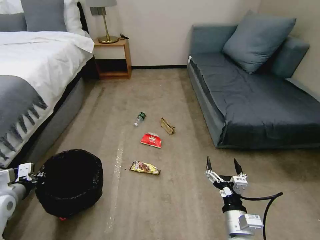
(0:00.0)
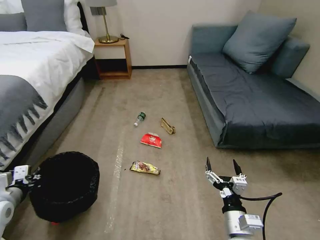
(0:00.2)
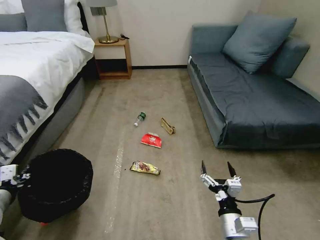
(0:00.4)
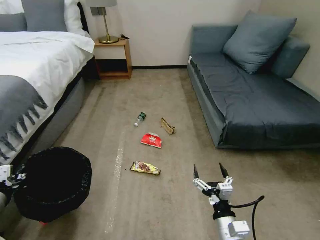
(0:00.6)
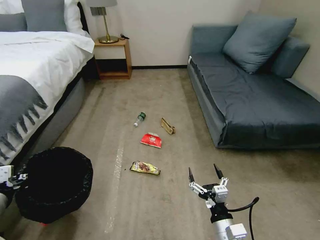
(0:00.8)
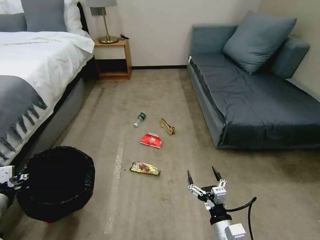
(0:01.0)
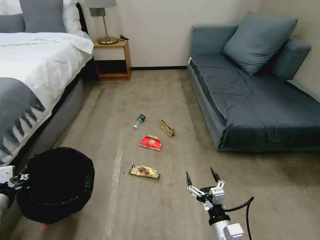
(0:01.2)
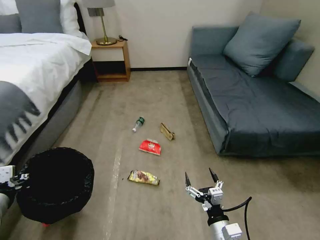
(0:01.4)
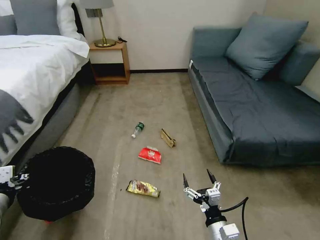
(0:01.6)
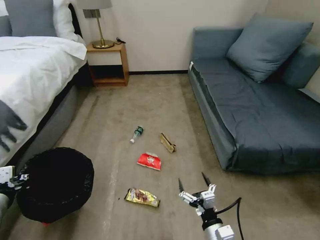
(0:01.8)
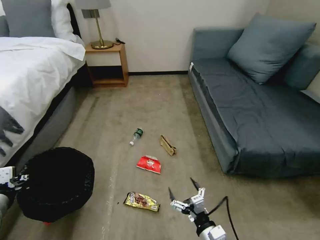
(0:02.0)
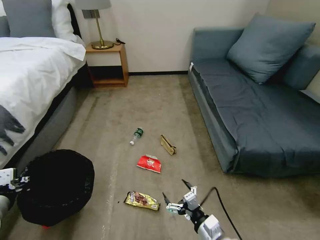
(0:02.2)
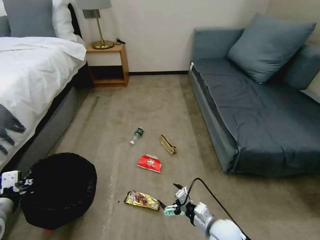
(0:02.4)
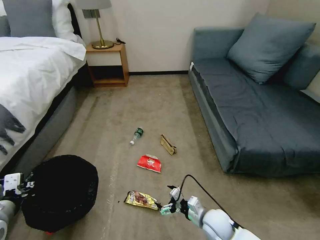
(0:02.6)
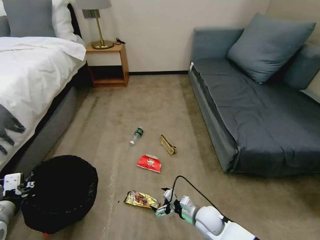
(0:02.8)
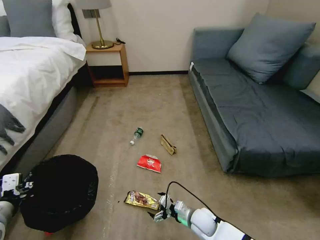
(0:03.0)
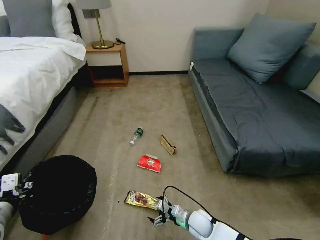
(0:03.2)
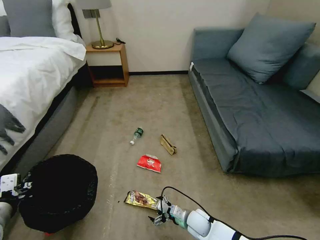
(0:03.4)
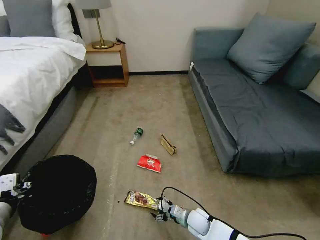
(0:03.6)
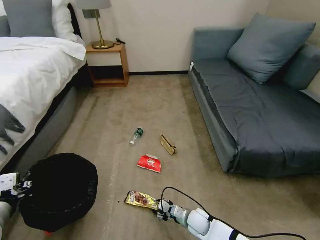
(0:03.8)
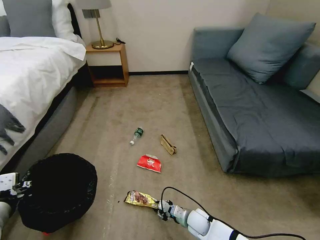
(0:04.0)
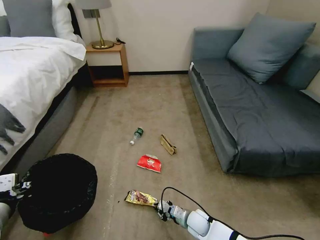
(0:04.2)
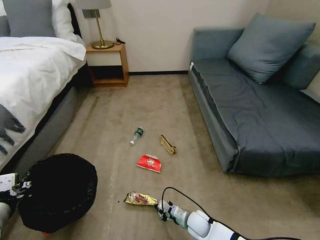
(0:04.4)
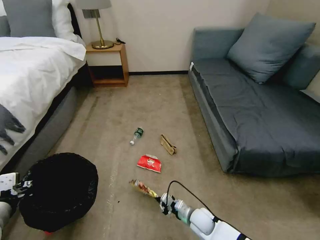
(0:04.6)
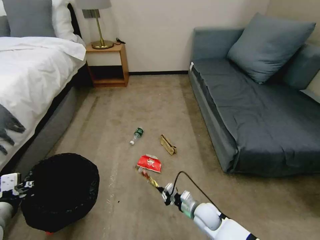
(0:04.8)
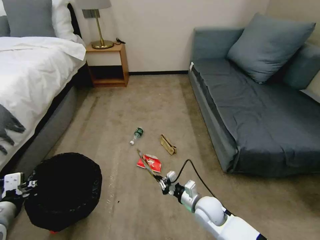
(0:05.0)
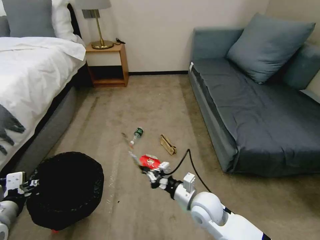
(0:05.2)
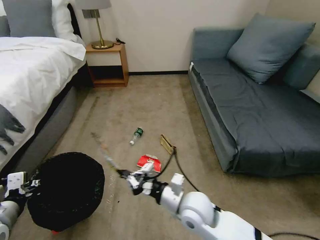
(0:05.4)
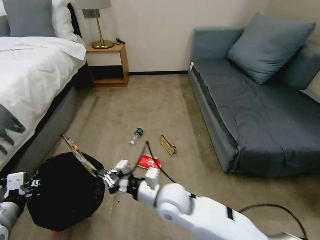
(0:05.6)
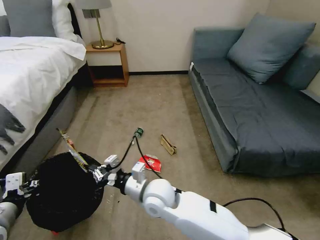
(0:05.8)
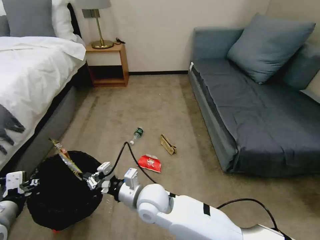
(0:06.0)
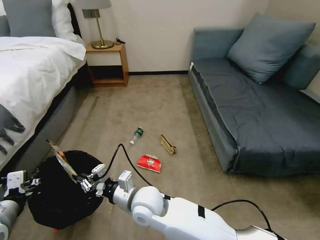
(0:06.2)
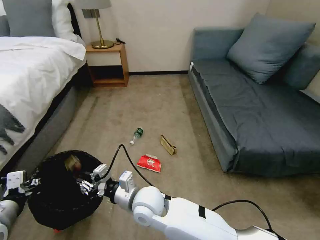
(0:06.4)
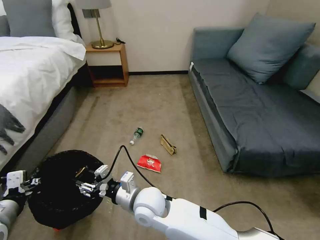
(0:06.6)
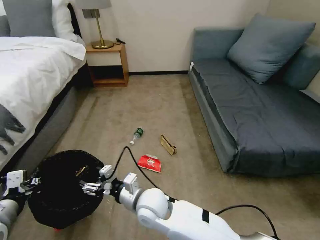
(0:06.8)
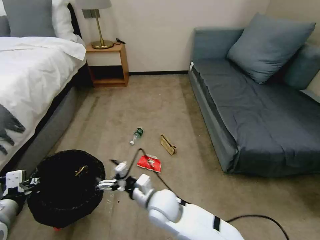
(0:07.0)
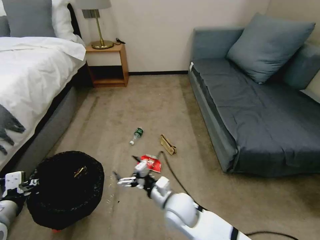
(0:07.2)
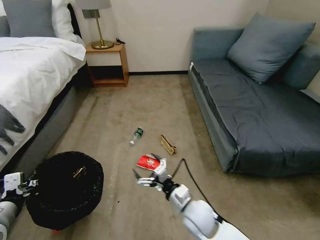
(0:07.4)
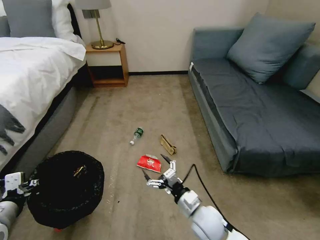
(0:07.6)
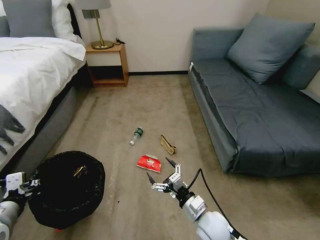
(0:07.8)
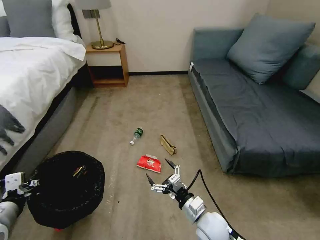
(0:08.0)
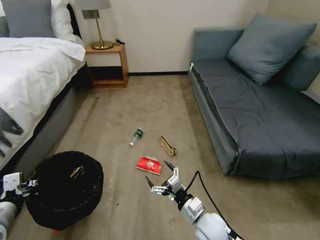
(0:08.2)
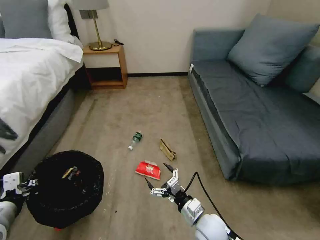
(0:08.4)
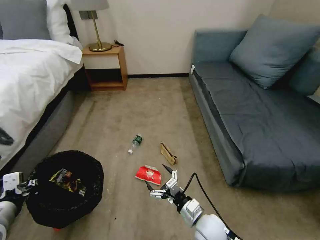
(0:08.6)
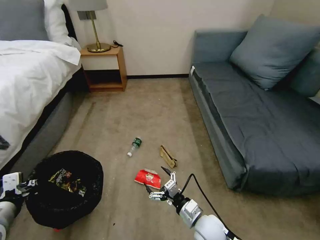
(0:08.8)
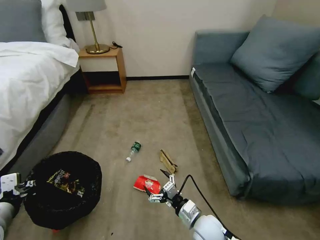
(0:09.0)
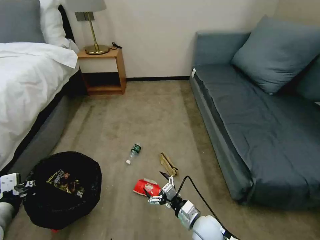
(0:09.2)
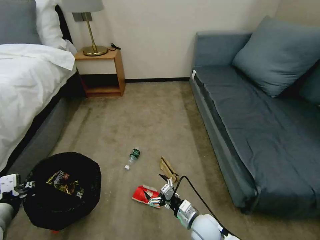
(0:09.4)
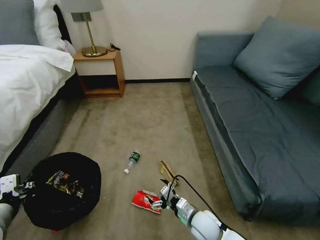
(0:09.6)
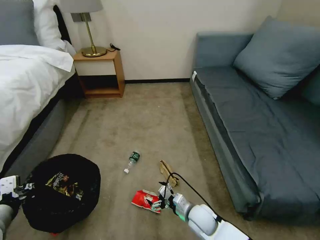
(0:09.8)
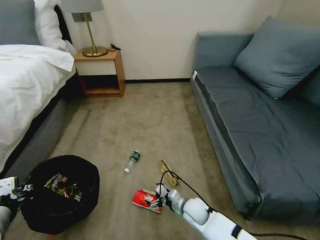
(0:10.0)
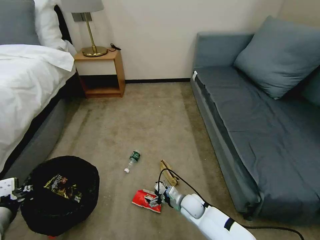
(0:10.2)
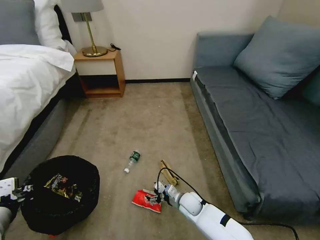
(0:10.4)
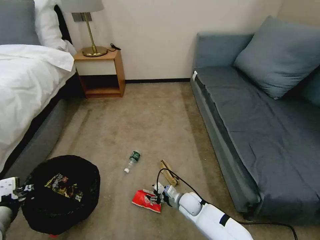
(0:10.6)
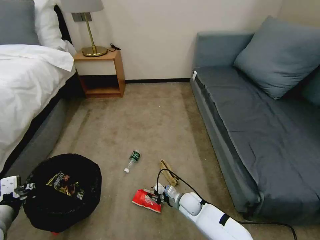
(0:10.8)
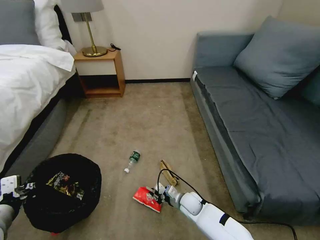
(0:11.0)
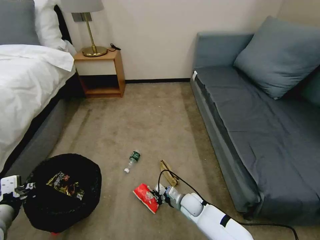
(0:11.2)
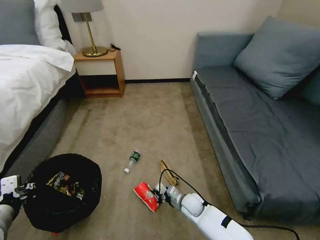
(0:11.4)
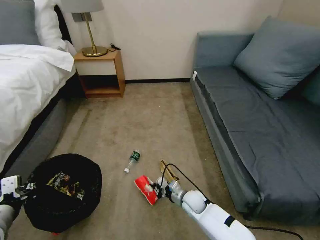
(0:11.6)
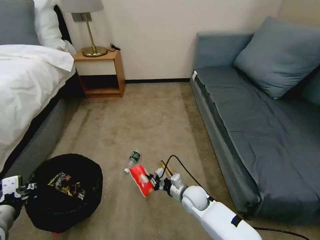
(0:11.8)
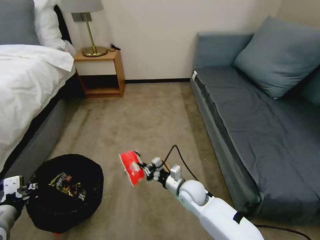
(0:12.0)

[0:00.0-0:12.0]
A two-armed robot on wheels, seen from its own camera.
Task of the whole recording: Pick up the trash bin, then pick up the garbage on the floor and place it into the trash bin.
0:00.0 to 0:01.6: The left gripper heads backward and upward, covering approximately 10 cm; the right gripper changes place by roughly 5 cm.
0:01.6 to 0:03.0: The right gripper heads forward and downward, covering some 20 cm.
0:03.0 to 0:04.4: The right gripper closes.
0:04.4 to 0:06.0: The right gripper travels upward and to the left by about 30 cm.
0:06.0 to 0:07.6: The right gripper is displaced to the right and downward by roughly 20 cm, and opens its fingers.
0:09.0 to 0:10.4: The right gripper is displaced forward and downward by some 15 cm.
0:10.4 to 0:12.0: The right gripper moves upward, approximately 10 cm, and closes its fingers.

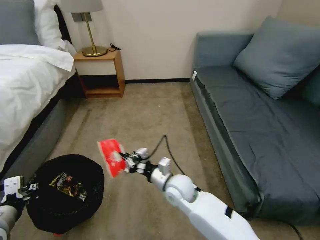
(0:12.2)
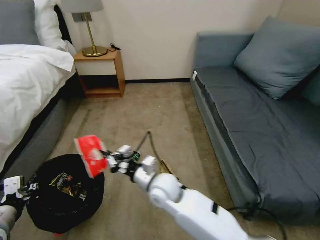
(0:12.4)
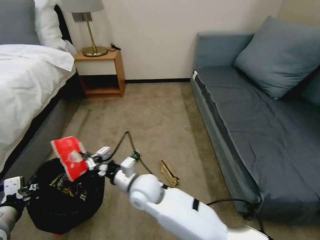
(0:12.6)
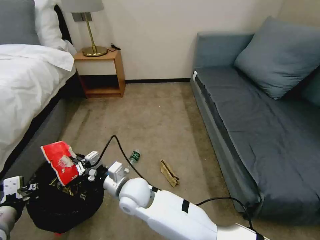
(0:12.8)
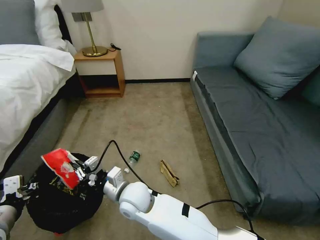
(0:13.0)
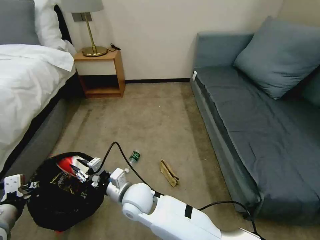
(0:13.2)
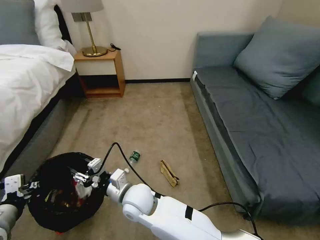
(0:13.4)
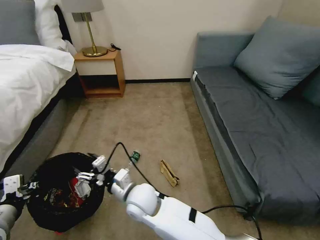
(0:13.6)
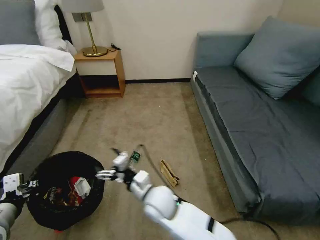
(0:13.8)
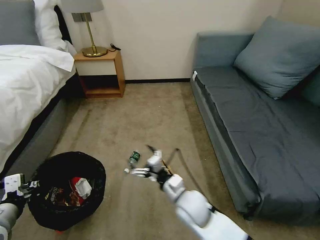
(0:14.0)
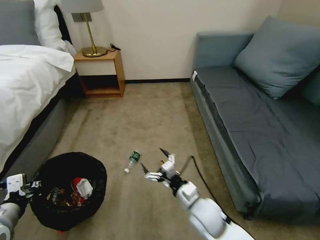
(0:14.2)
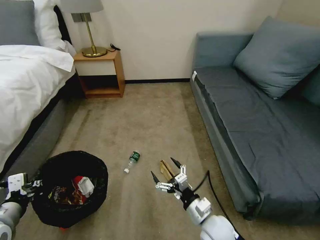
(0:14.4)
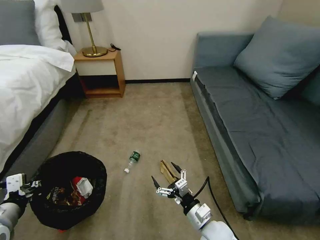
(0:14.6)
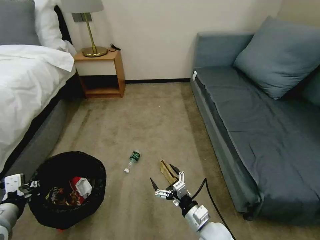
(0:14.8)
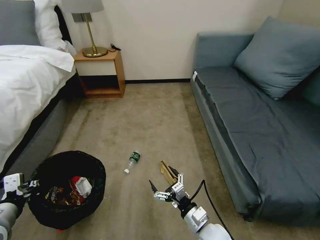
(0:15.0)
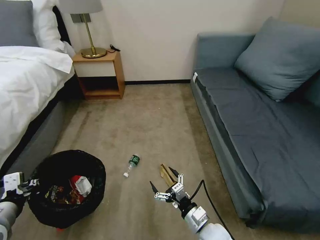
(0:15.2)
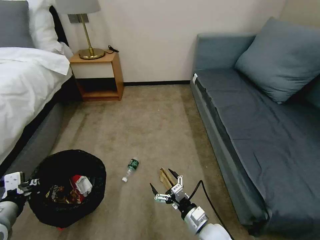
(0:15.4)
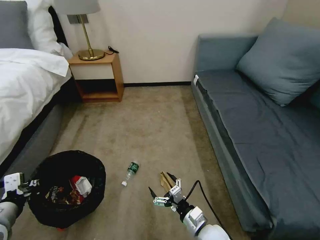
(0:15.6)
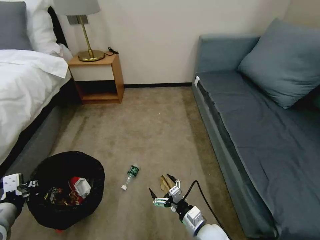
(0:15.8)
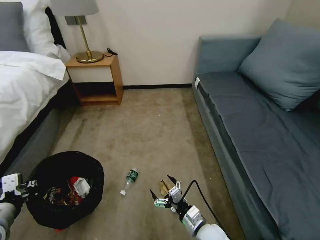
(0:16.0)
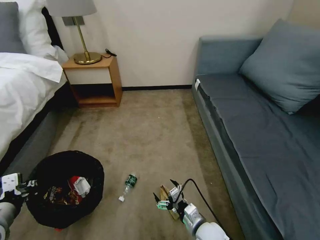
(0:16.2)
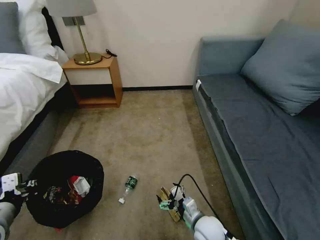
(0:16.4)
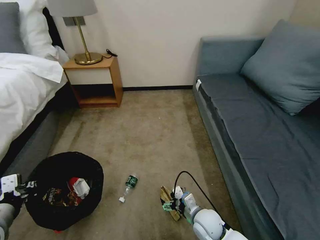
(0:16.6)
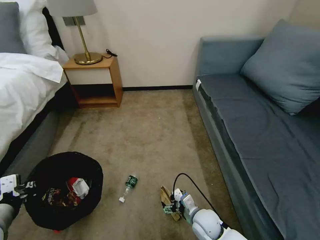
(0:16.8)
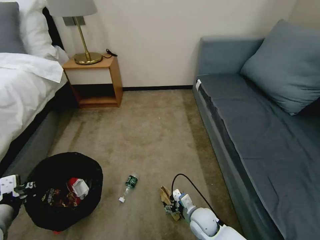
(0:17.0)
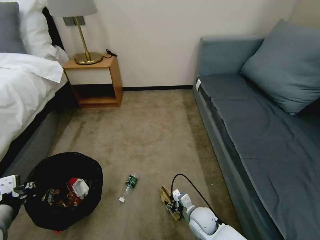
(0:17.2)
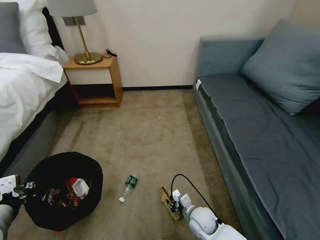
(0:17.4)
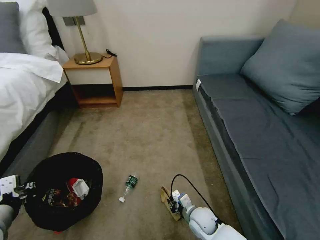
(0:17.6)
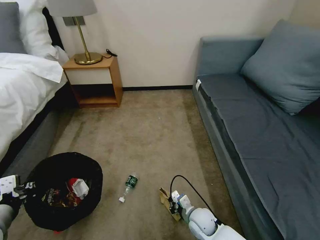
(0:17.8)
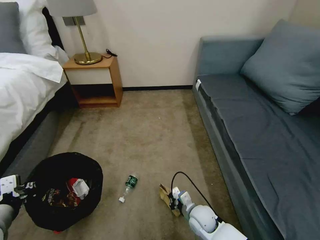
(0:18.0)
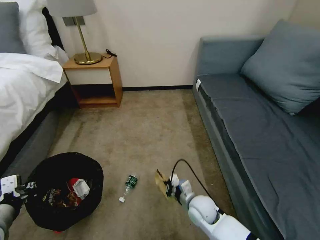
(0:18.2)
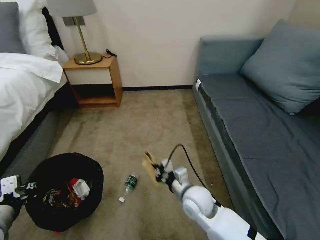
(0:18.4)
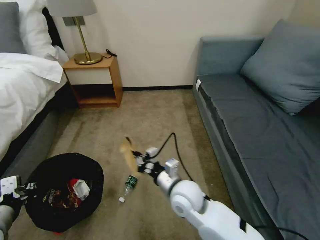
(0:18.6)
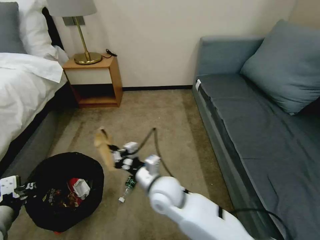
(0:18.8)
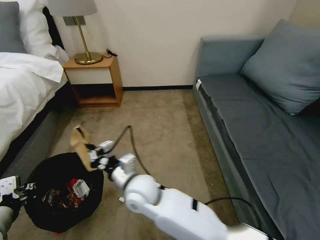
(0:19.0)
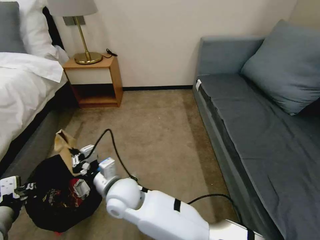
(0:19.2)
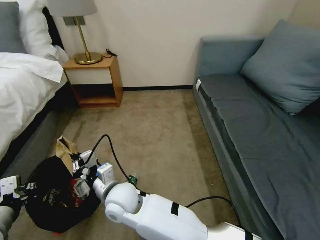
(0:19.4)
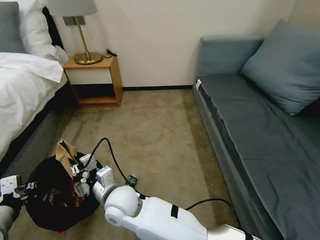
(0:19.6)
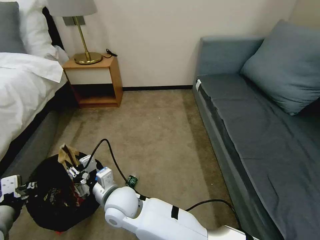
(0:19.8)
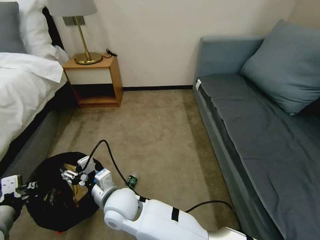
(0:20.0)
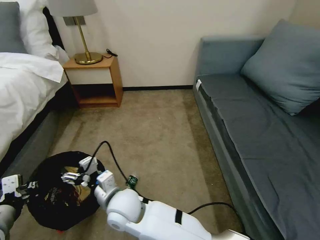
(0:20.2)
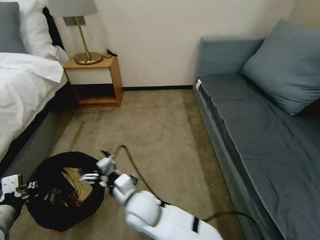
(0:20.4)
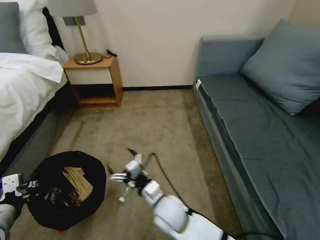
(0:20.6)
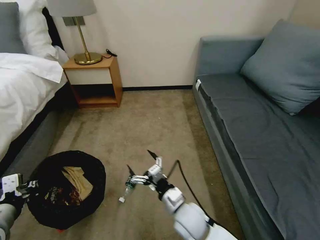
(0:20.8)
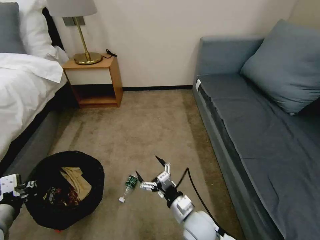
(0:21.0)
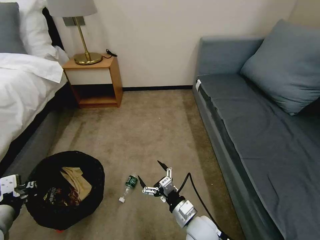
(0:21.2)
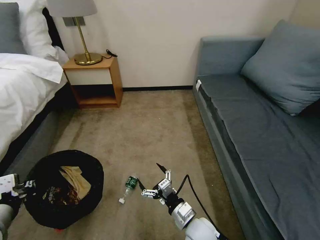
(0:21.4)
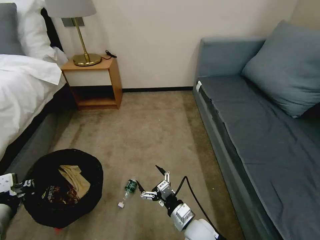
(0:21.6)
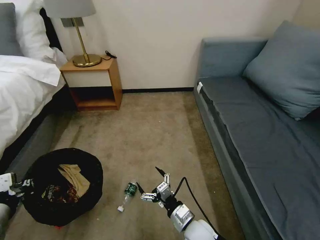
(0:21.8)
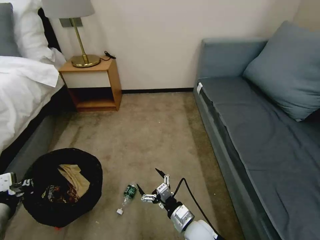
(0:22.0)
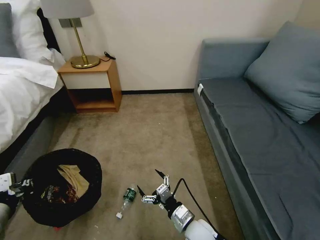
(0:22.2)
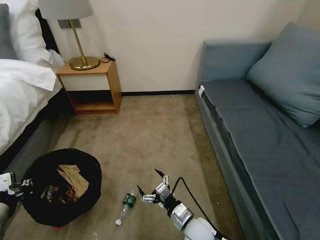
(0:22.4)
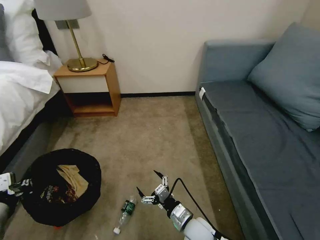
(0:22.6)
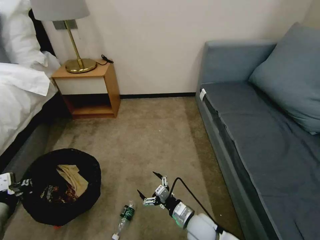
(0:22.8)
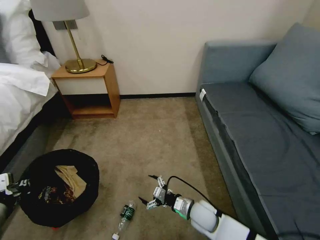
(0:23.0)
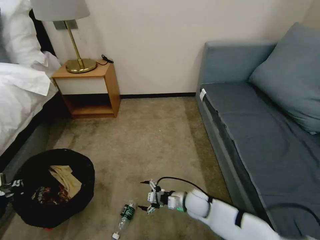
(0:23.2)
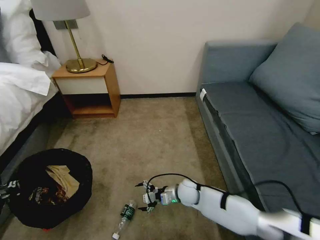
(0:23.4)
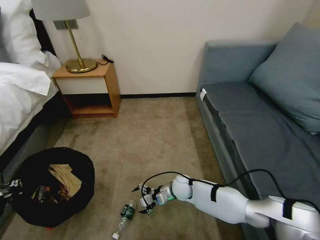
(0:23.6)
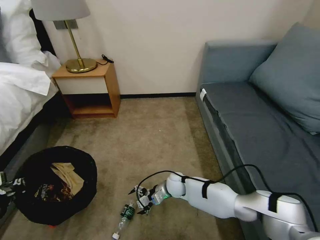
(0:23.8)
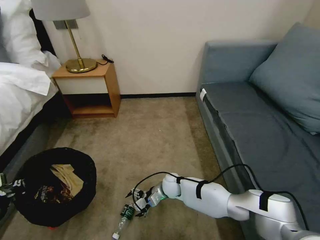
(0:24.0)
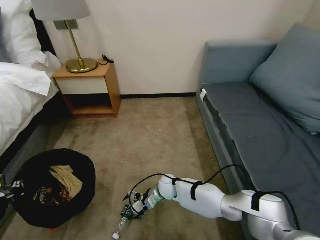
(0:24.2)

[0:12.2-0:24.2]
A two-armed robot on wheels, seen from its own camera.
Task of the whole recording: Pick up the trash bin, then pick up the garbage on the floor and place it into the trash bin.
0:12.2 to 0:13.8: The right gripper heads to the left, covering roughly 5 cm, and opens.
0:13.8 to 0:15.2: The right gripper travels to the right, backward and downward by some 20 cm.
0:15.2 to 0:16.6: The right gripper moves about 5 cm.
0:16.6 to 0:18.2: The right gripper ends up some 5 cm from where it was, and closes its fingers.
0:18.2 to 0:19.8: The right gripper goes approximately 30 cm to the left and upward, and opens.
0:19.8 to 0:21.2: The right gripper is displaced to the right by about 25 cm, and opens up.
0:22.6 to 0:24.2: The right gripper goes roughly 20 cm forward and to the left.
